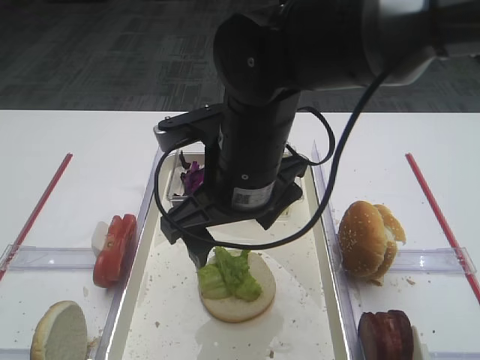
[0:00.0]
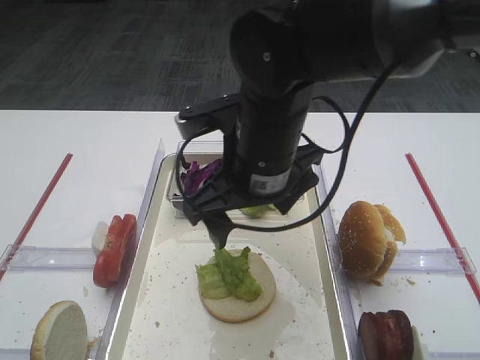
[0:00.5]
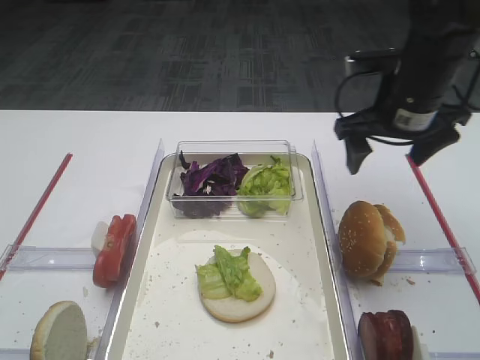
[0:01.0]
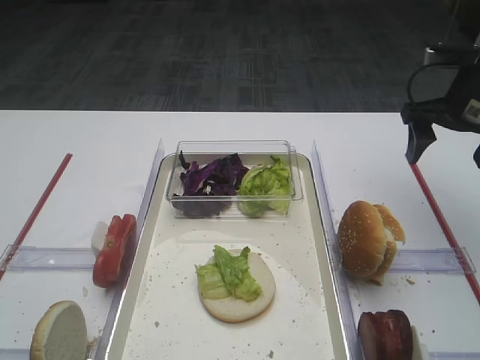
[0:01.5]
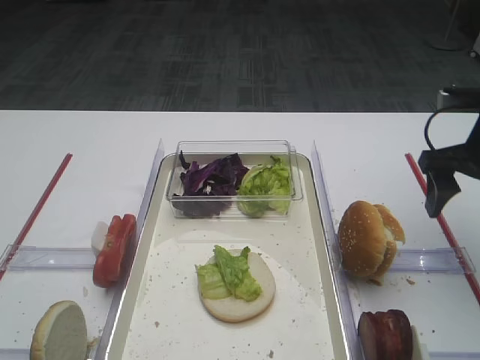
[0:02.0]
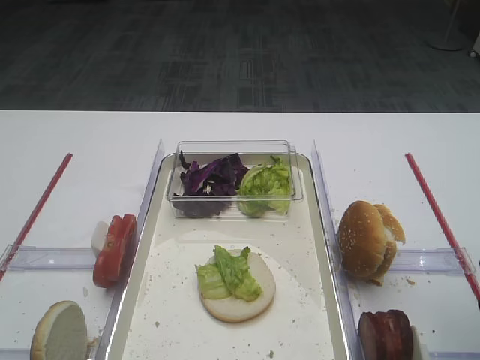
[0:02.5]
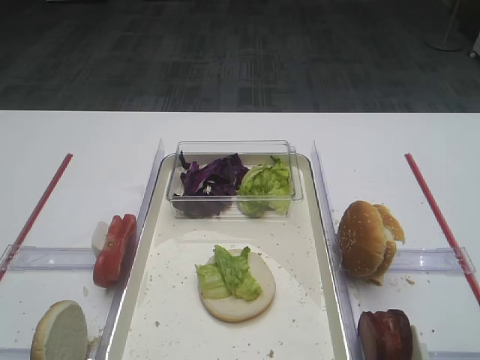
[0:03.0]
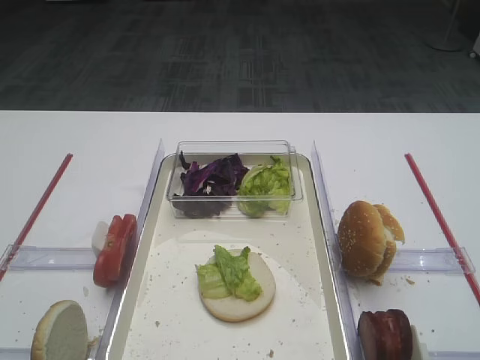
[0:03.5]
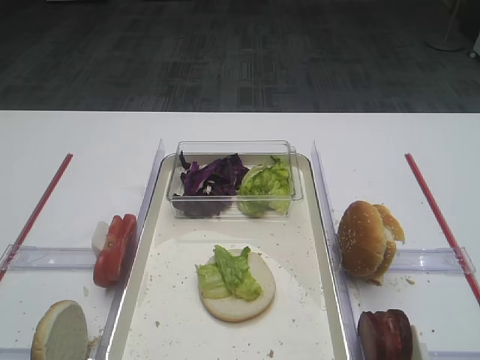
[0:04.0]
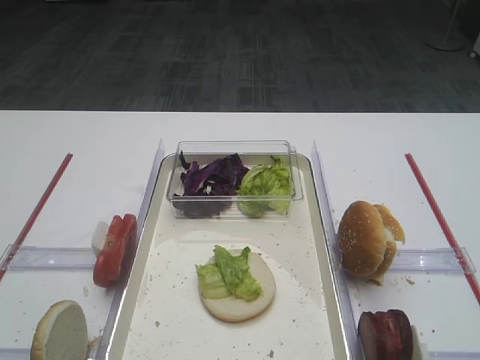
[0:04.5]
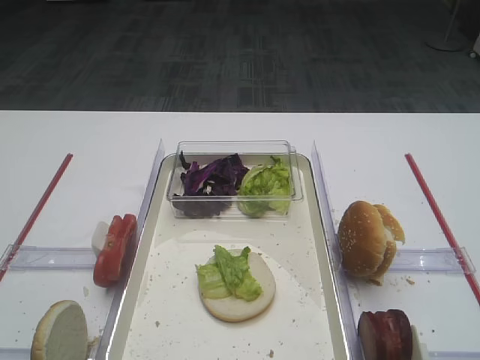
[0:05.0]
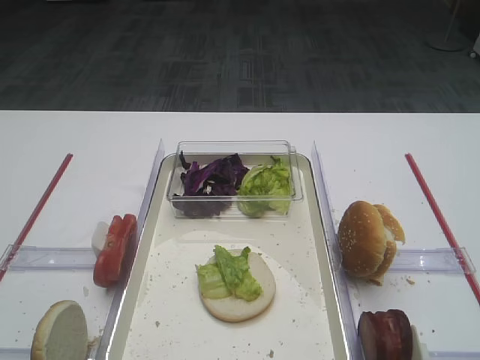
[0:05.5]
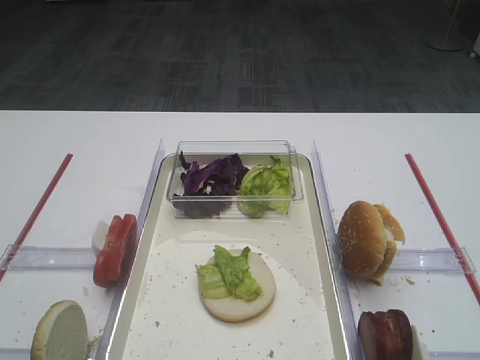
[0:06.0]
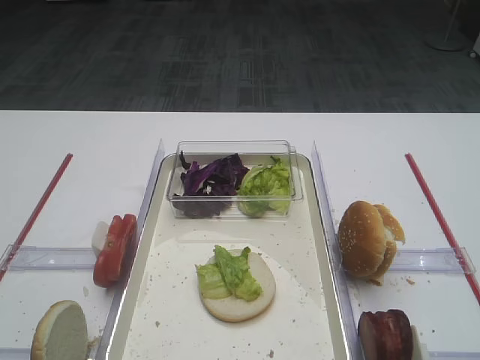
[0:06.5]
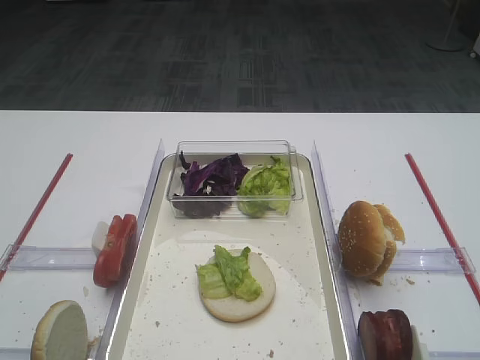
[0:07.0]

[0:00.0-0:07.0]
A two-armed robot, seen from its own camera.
0:00.0 to 0:02.0: The right gripper shifts some 25 cm to the right.
0:02.0 to 0:03.5: The right gripper shifts roughly 25 cm backward.
0:05.0 to 0:07.0: Neither gripper changes place.

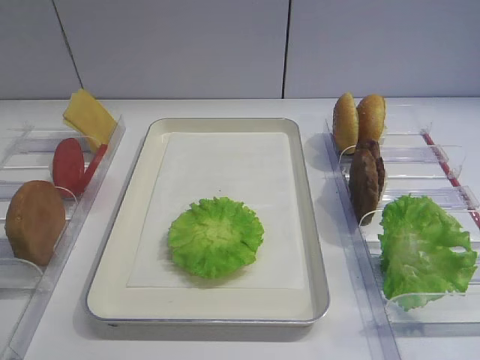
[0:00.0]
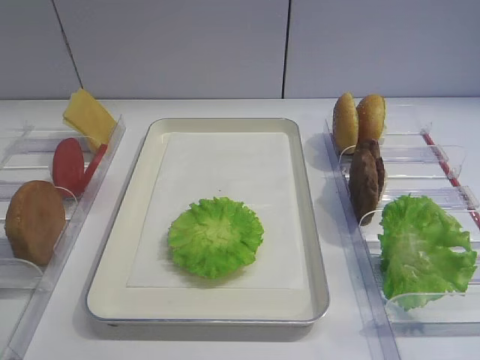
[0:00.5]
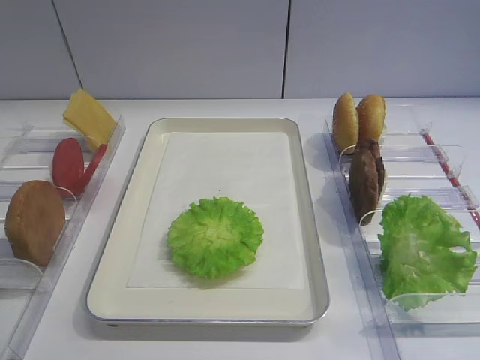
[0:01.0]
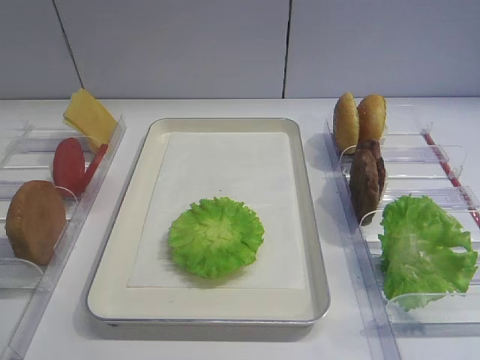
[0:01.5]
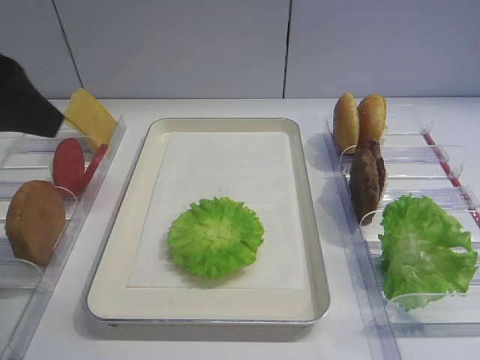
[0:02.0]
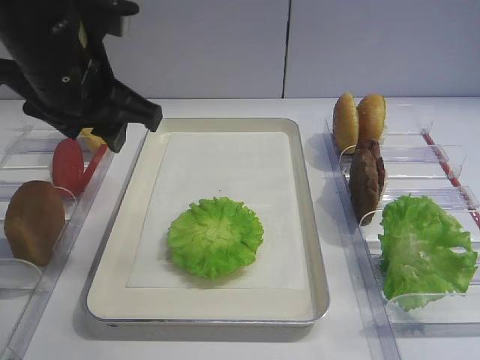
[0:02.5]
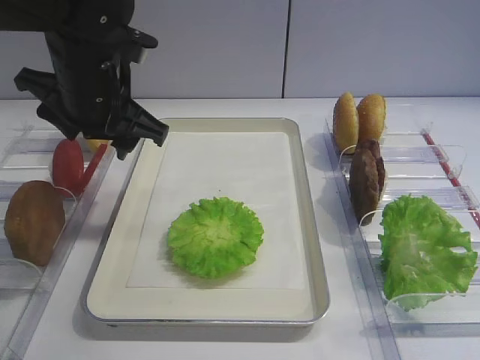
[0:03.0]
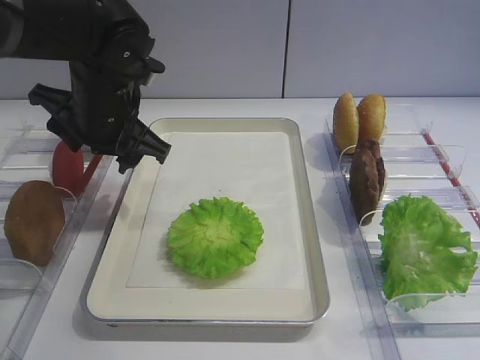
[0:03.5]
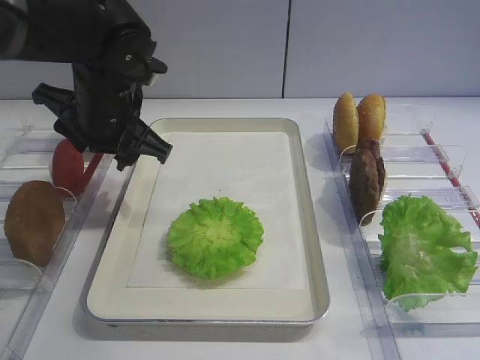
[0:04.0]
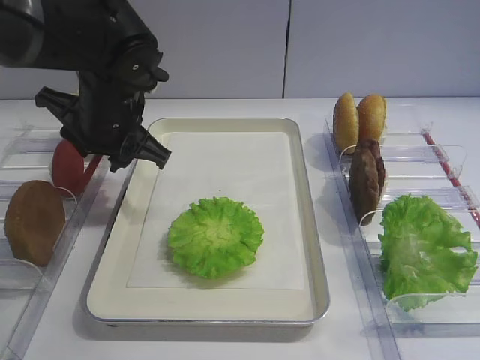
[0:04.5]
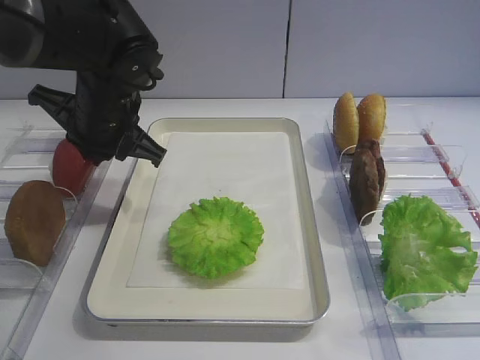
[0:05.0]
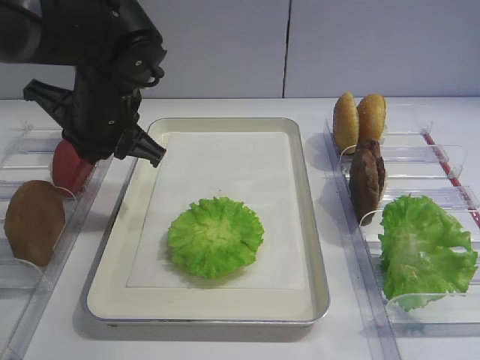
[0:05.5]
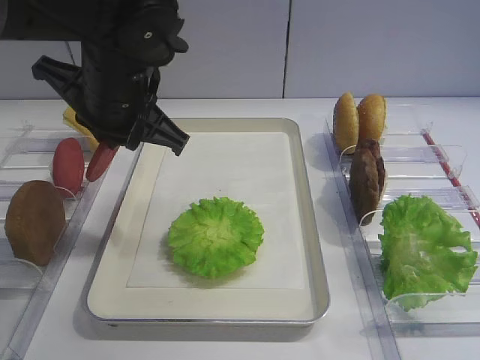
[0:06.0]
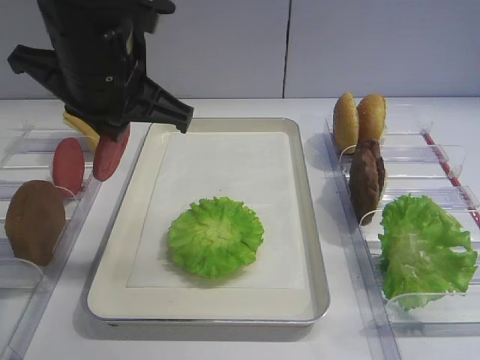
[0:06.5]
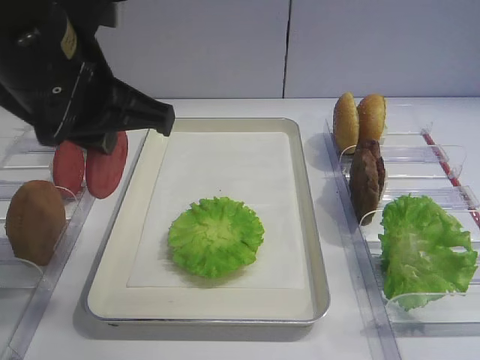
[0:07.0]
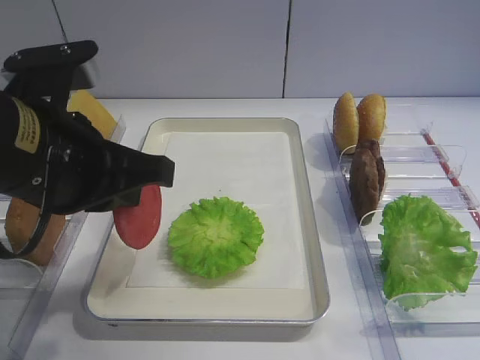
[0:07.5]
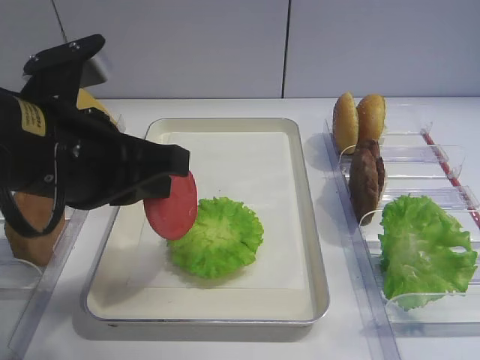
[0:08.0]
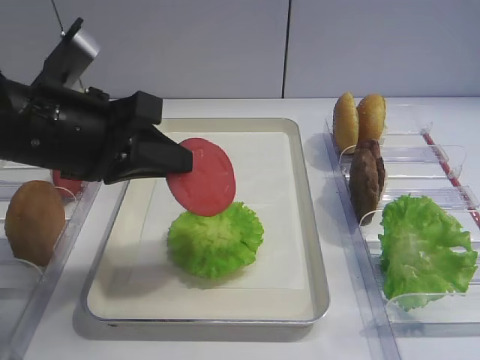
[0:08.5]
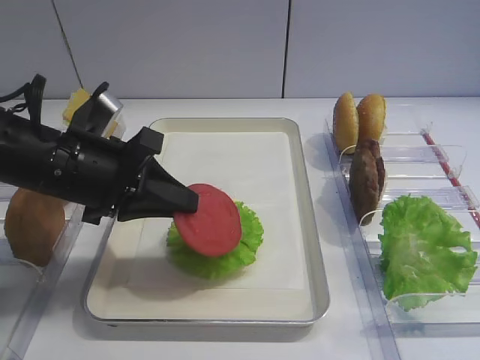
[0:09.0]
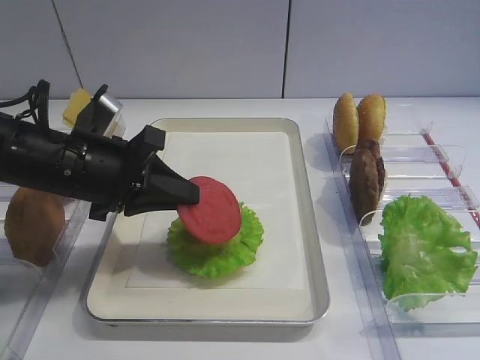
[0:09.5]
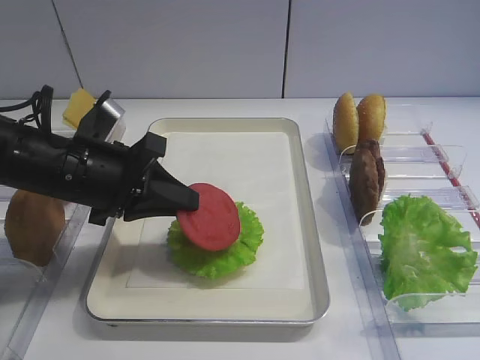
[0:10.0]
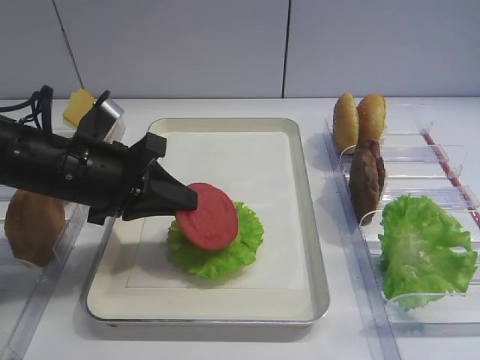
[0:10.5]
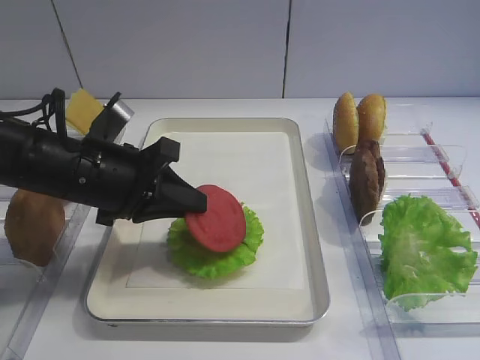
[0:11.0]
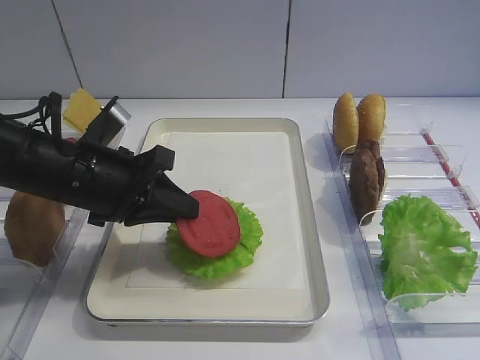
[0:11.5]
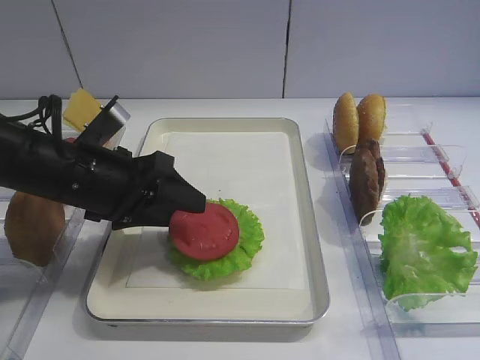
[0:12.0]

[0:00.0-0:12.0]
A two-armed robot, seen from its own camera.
Step, 0:00.0 to 0:06.0: Pick up the tomato slice with the left gripper.
0:02.0 to 0:04.0: The left gripper shifts about 20 cm forward, downward and to the right.
0:04.0 to 0:06.0: The left gripper changes place by roughly 5 cm, and closes up.
0:06.0 to 0:08.0: The right gripper closes its fingers. Meanwhile the left gripper goes some 10 cm backward.
0:08.0 to 0:10.0: The left gripper shifts some 10 cm downward and forward.
0:10.0 to 0:12.0: The left gripper opens its fingers.

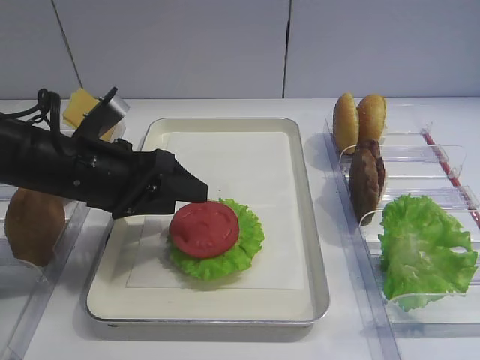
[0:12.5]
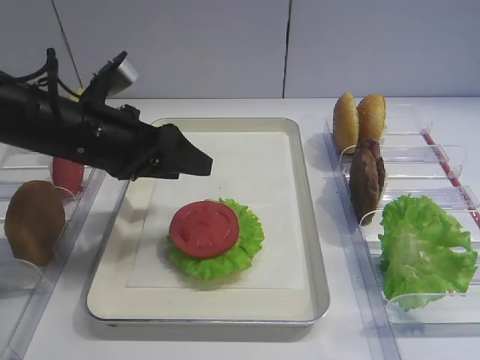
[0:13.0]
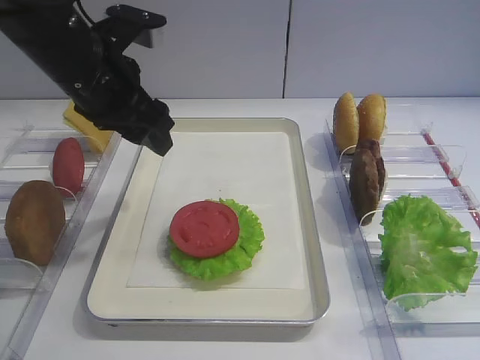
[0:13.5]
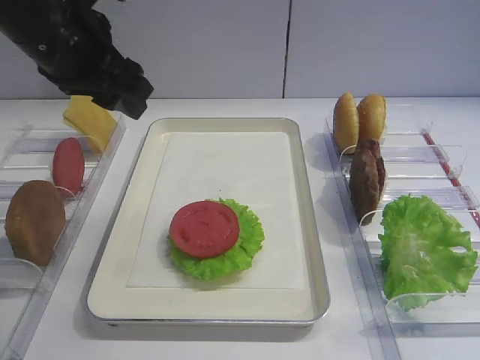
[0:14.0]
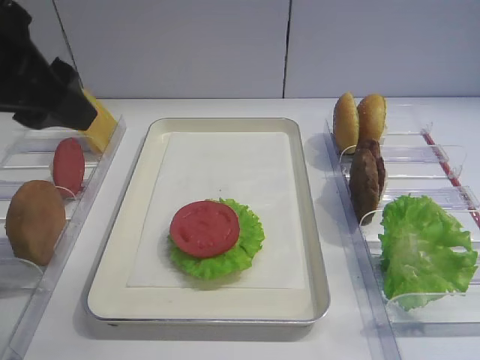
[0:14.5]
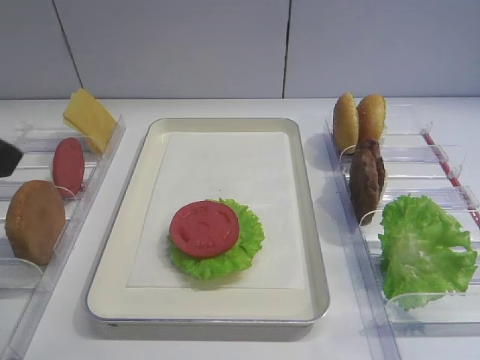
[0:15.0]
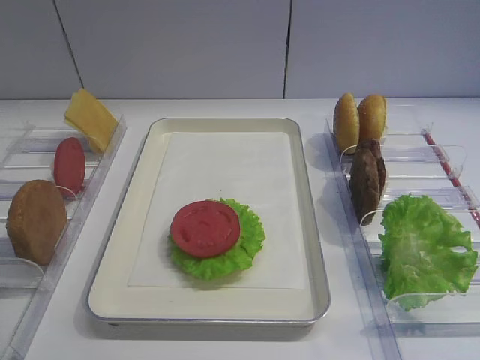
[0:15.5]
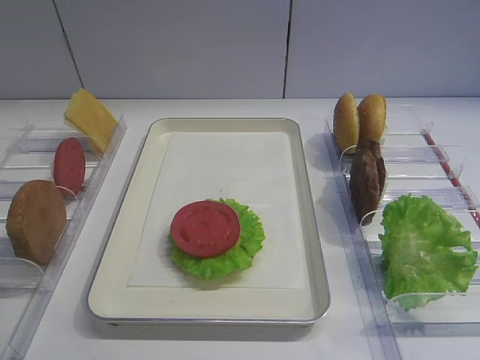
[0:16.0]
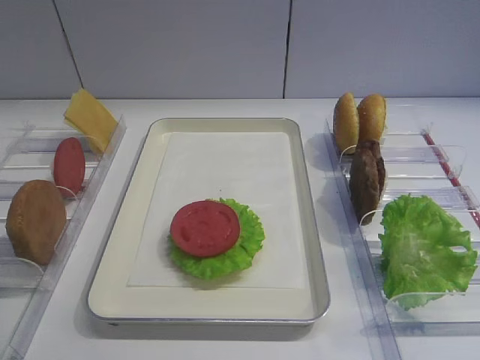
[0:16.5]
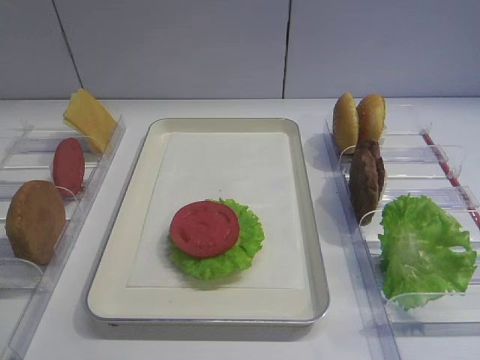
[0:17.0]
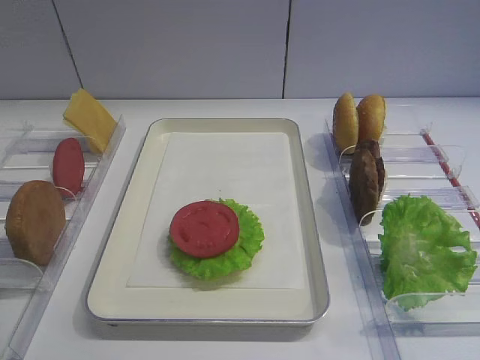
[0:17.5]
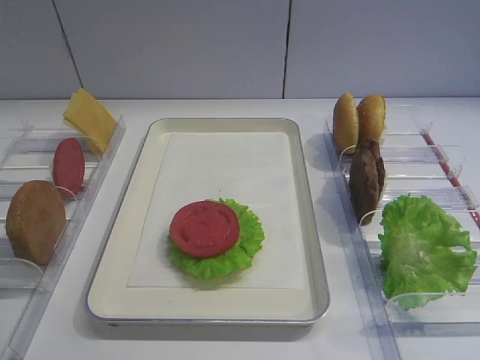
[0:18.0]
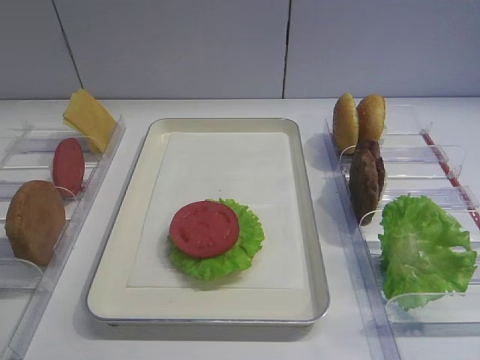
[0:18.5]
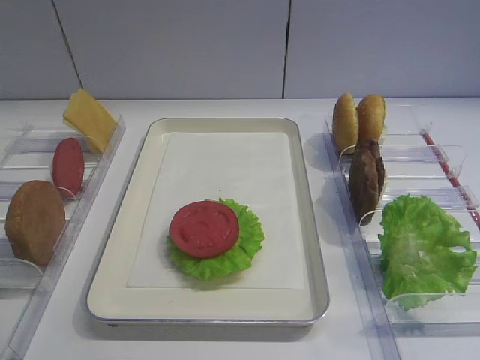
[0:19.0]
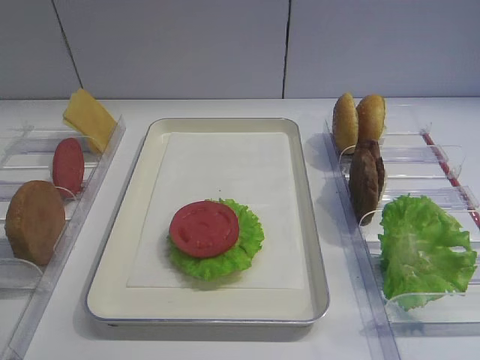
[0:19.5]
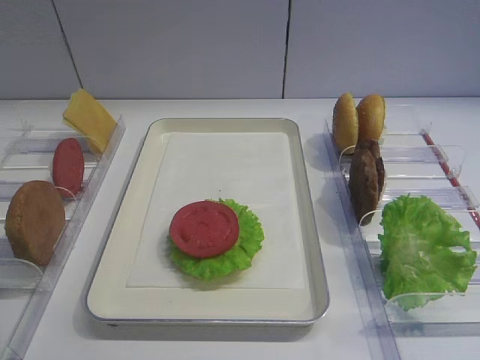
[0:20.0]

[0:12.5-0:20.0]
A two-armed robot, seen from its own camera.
0:12.5 to 0:14.5: The left gripper shifts about 15 cm upward.
0:14.5 to 0:16.5: The left gripper shifts roughly 25 cm backward.
0:18.0 to 0:20.0: The two grippers keep their place.
